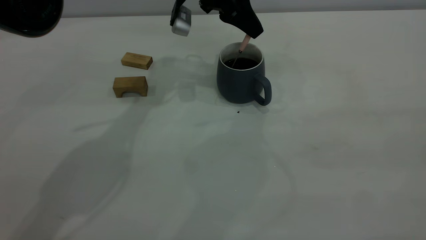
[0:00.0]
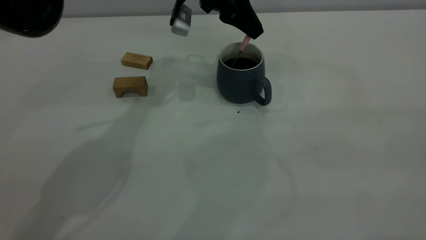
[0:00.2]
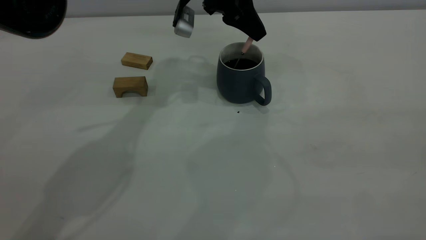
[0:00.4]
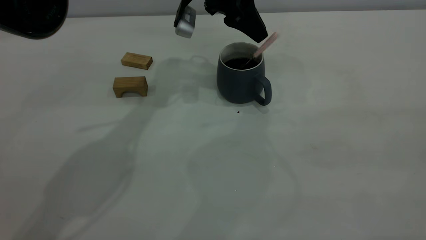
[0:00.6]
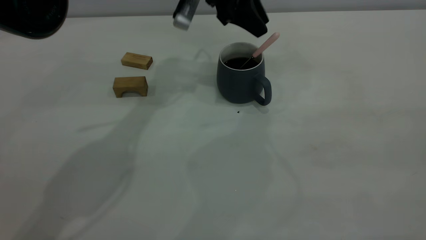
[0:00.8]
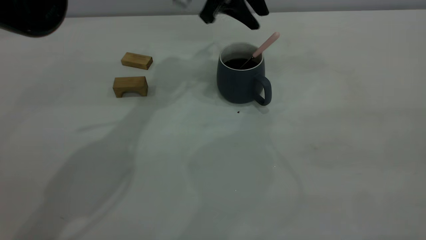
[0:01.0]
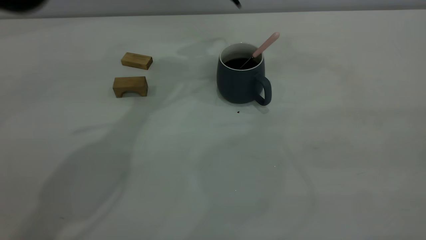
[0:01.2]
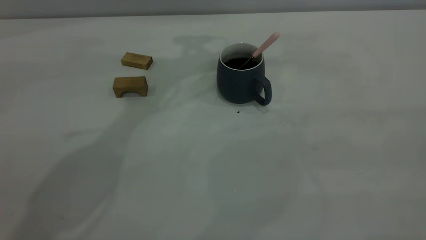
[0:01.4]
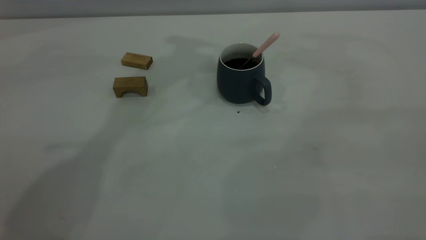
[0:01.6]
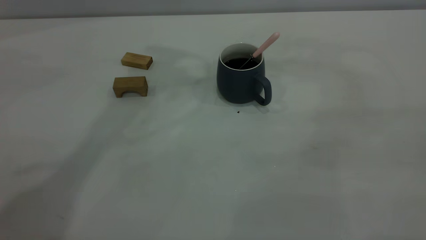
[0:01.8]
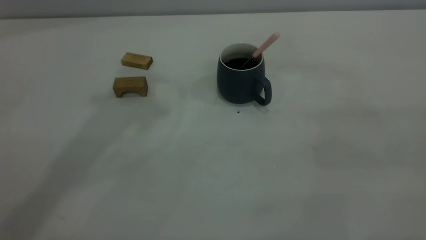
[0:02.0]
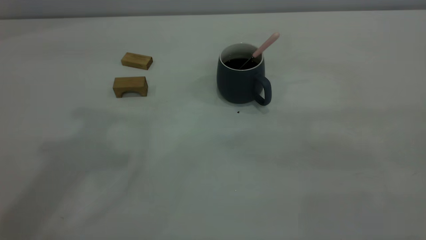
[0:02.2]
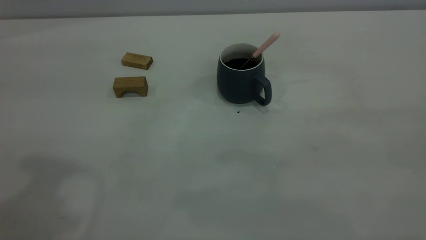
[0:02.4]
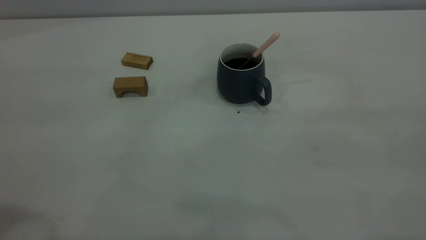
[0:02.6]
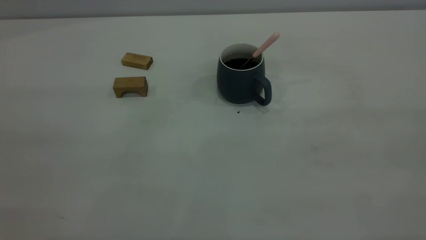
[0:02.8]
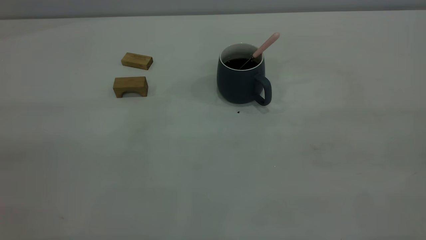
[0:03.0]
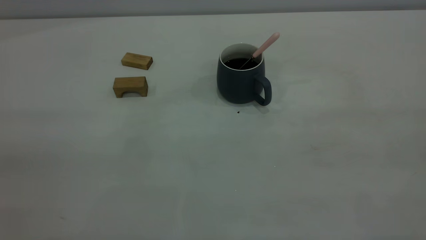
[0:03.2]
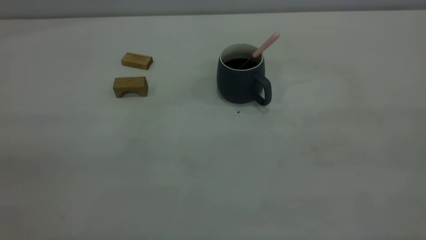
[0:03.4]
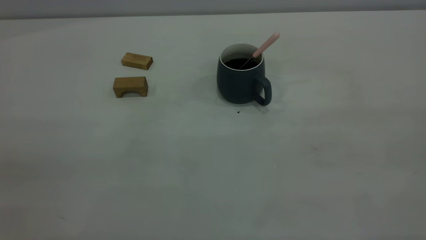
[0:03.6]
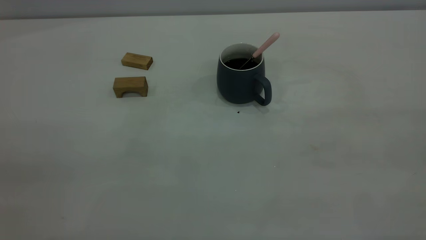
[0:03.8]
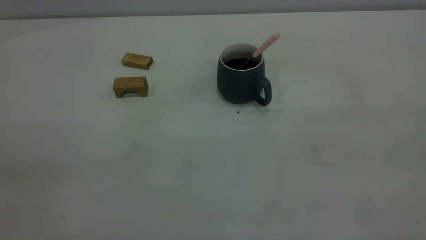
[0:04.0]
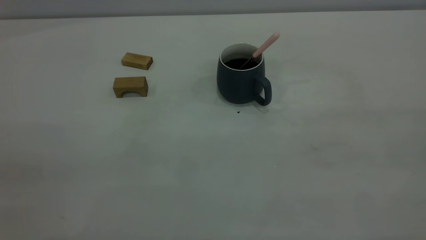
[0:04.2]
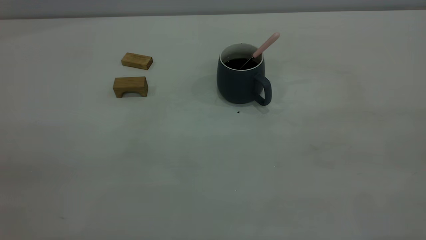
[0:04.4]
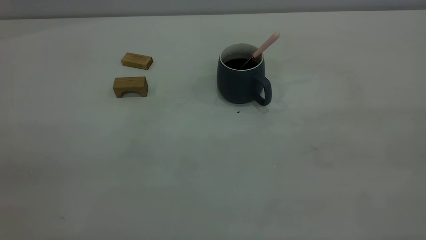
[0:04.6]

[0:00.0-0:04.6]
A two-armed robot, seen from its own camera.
0:00.0 to 0:01.6: The left gripper is displaced upward by approximately 20 cm.
